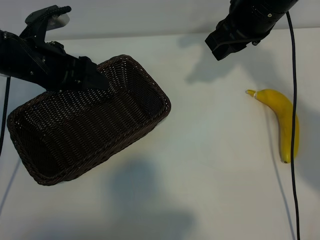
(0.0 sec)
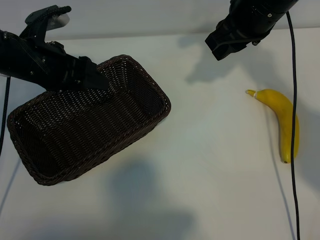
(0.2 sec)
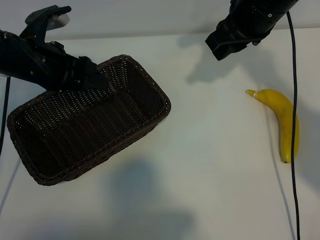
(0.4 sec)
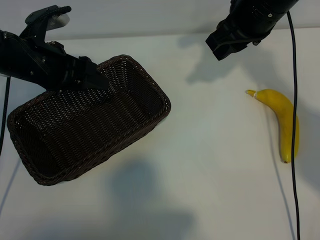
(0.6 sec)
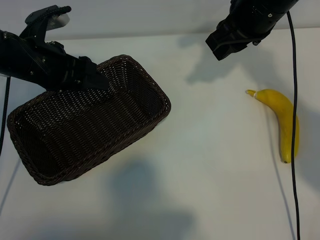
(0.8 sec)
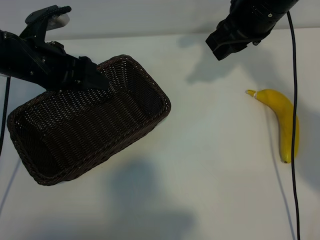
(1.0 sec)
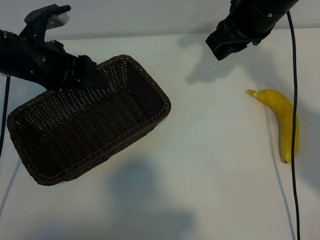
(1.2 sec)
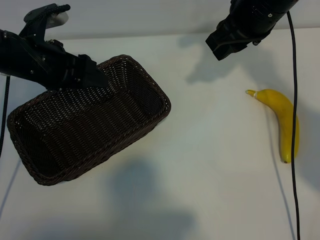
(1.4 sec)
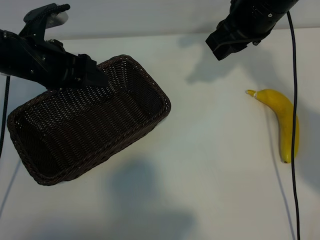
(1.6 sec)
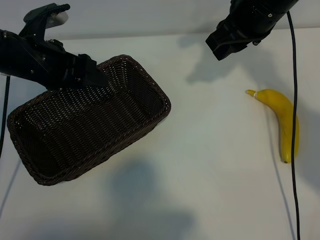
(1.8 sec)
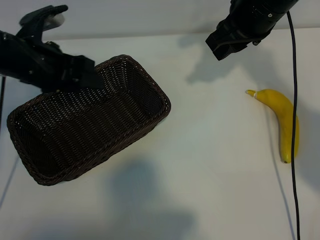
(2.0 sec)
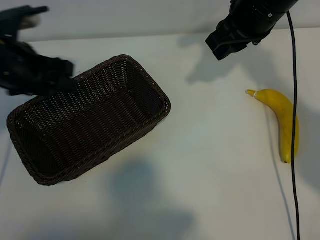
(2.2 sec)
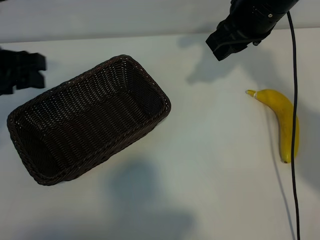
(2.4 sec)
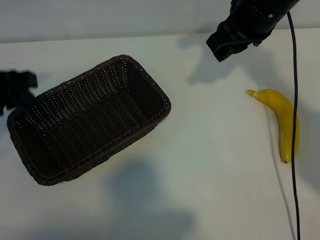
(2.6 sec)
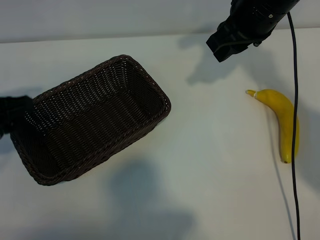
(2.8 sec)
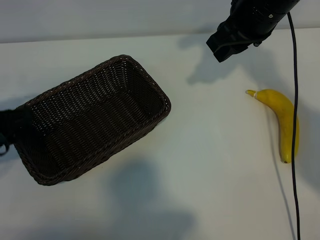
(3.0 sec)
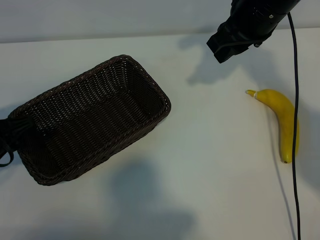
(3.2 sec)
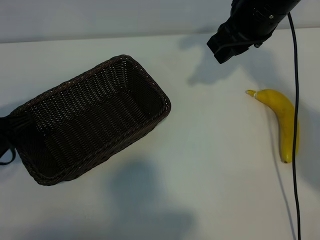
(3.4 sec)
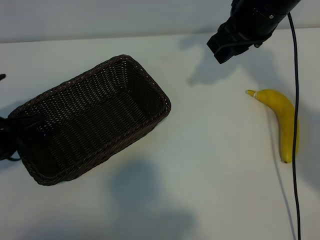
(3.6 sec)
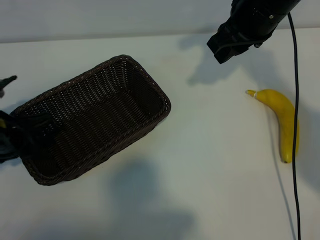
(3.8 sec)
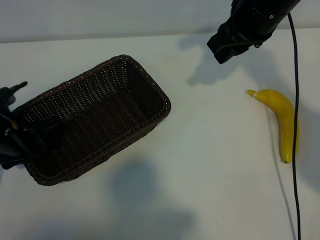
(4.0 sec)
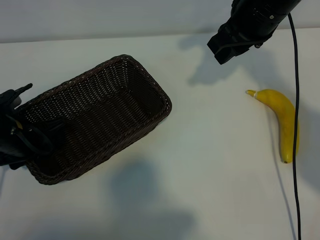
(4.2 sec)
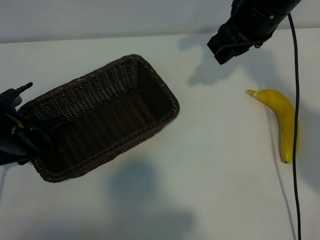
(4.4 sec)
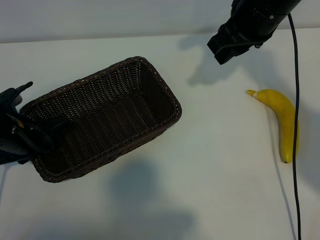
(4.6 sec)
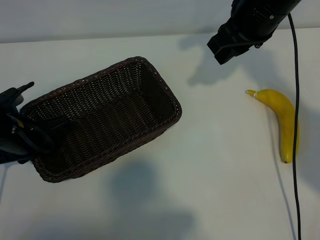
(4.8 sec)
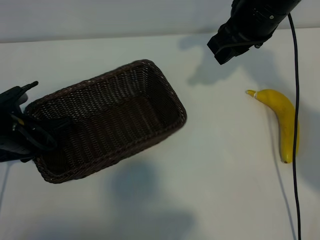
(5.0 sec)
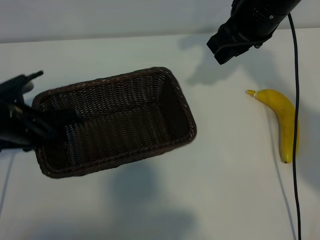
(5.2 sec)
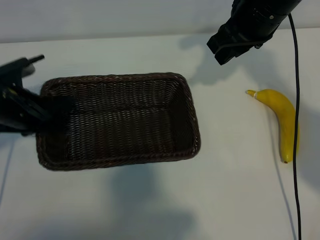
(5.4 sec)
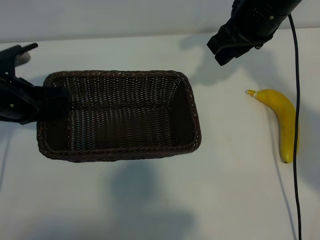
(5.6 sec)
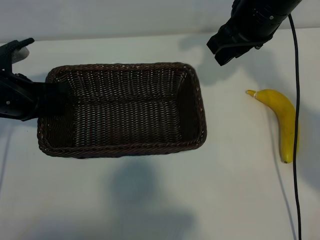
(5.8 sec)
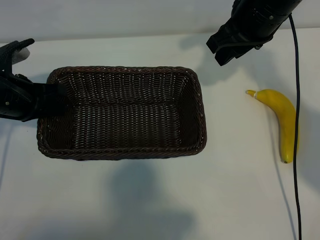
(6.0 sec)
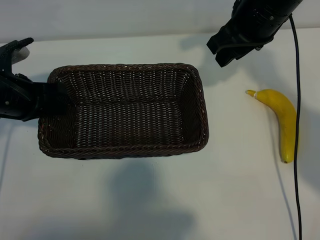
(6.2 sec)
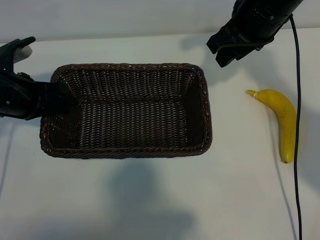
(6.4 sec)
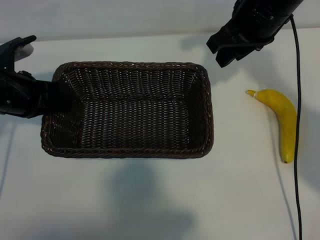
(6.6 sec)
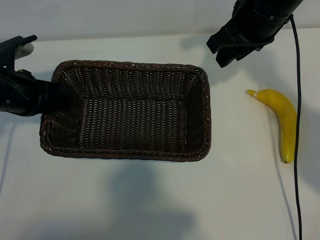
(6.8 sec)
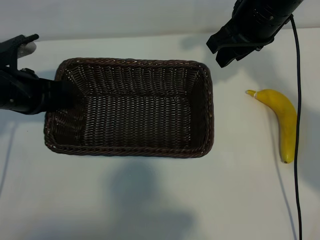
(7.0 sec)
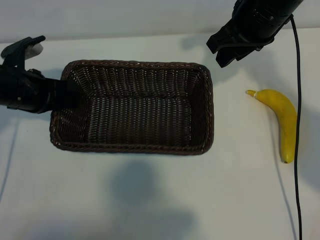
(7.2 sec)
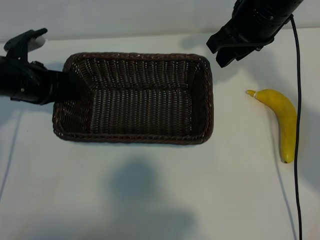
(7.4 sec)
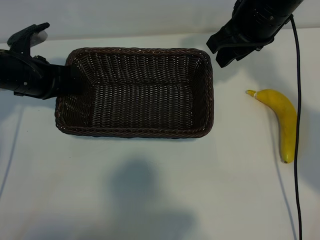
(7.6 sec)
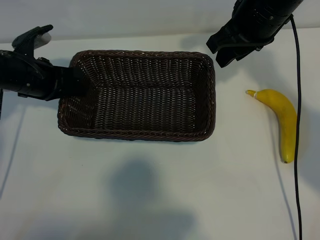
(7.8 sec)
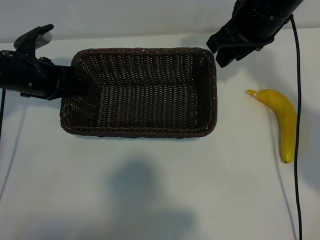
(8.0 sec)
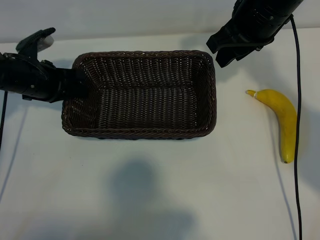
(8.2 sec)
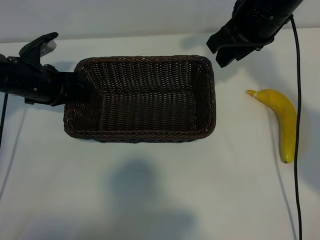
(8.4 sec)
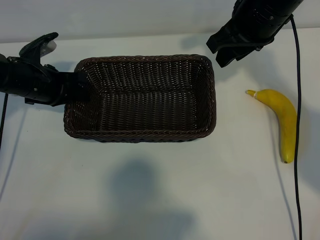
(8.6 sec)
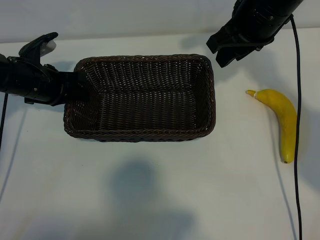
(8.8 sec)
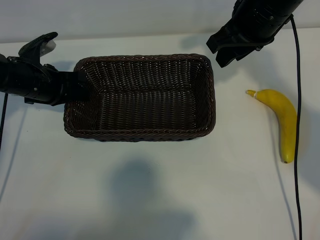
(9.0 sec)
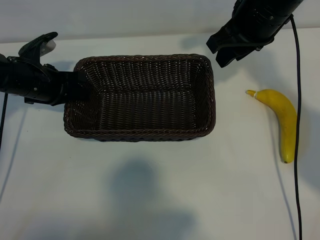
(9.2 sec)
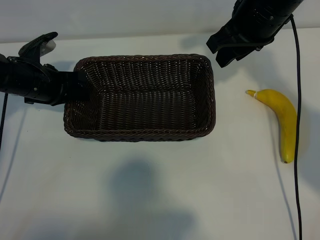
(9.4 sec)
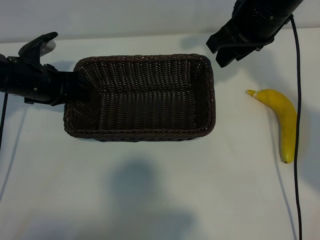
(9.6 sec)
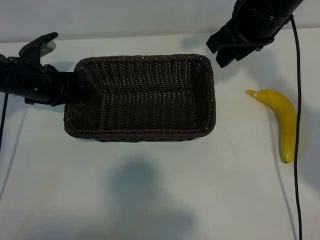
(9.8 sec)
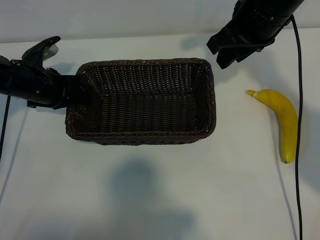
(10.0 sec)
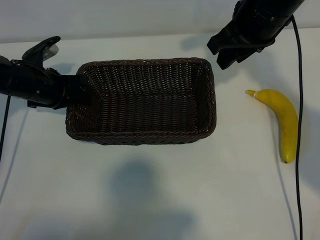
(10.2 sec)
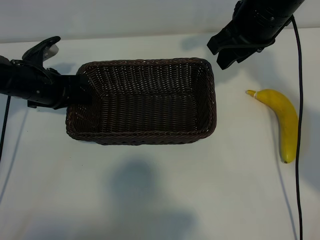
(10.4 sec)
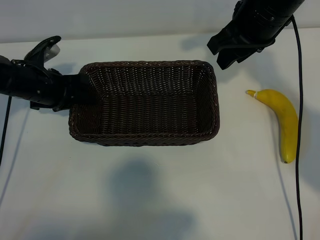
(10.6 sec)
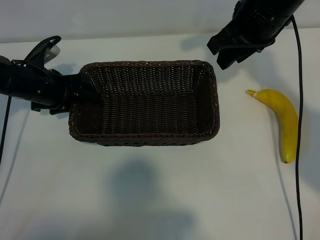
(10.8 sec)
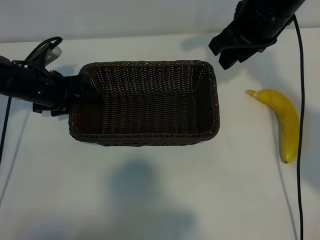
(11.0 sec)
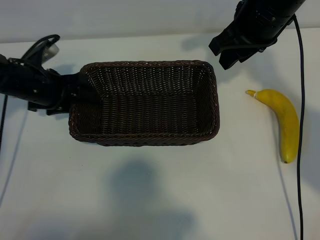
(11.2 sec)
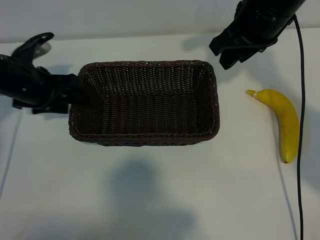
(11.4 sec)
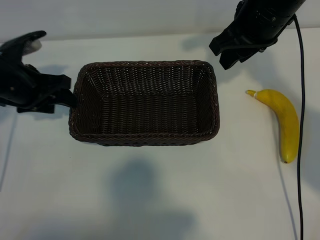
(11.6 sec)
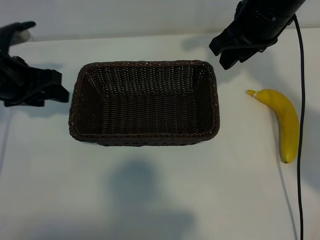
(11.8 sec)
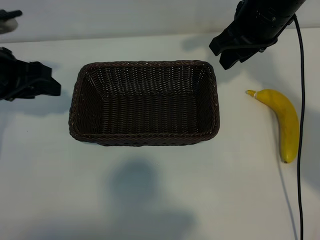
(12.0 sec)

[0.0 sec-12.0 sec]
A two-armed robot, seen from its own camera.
Task of the whole recording: pick up the banana and put it into the basket.
Step, 1.2 sec to 5.0 sec: Grasp the basket with the left gripper.
Step, 5.4 sec to 11.2 sec: Place the basket in the center of the table with the left gripper.

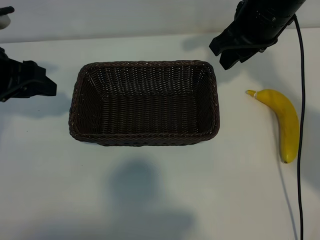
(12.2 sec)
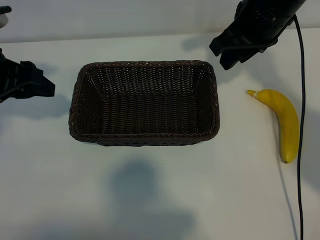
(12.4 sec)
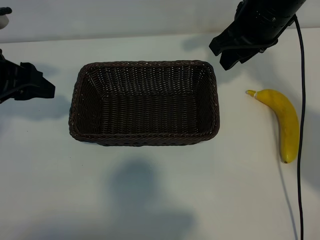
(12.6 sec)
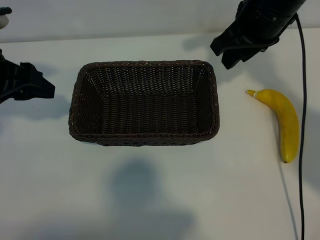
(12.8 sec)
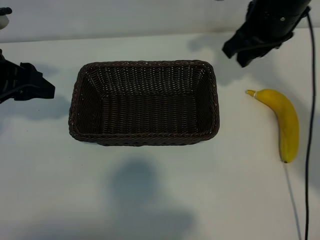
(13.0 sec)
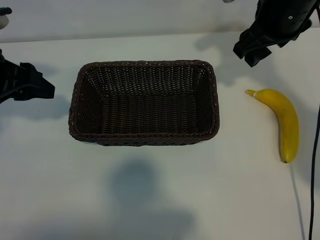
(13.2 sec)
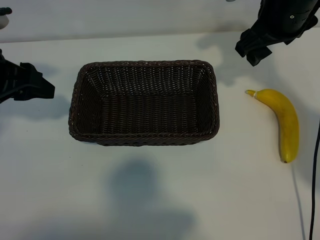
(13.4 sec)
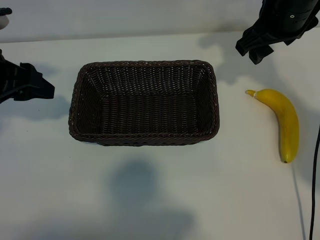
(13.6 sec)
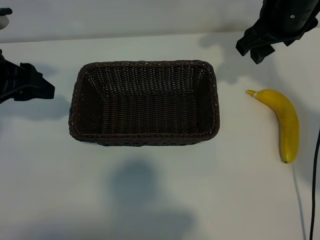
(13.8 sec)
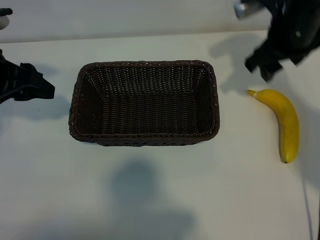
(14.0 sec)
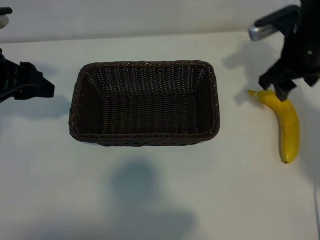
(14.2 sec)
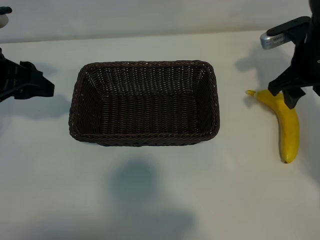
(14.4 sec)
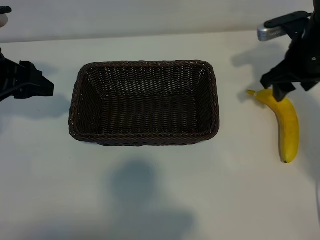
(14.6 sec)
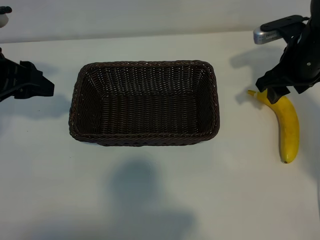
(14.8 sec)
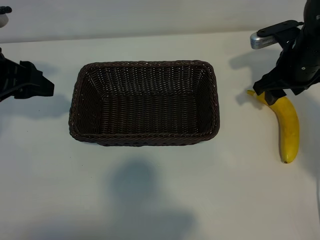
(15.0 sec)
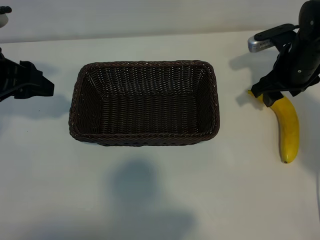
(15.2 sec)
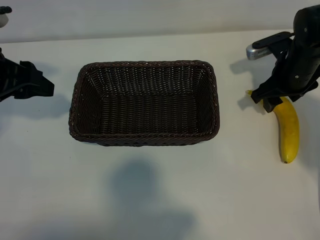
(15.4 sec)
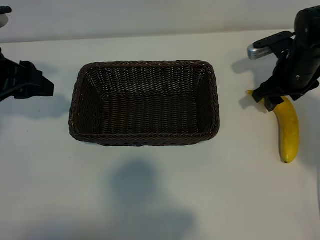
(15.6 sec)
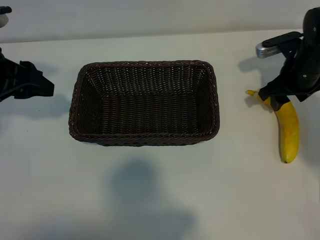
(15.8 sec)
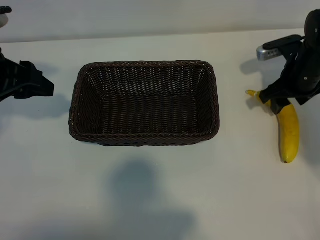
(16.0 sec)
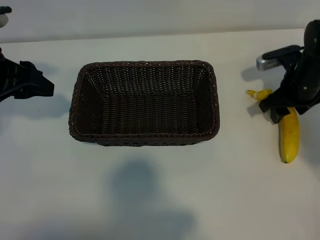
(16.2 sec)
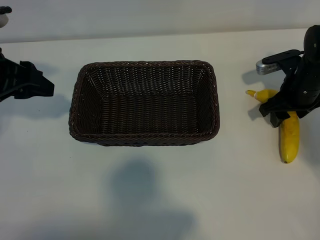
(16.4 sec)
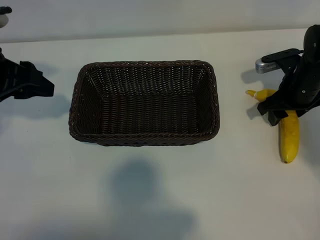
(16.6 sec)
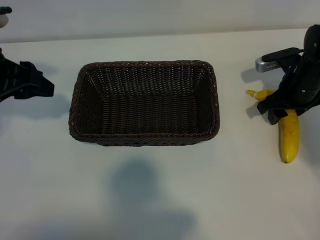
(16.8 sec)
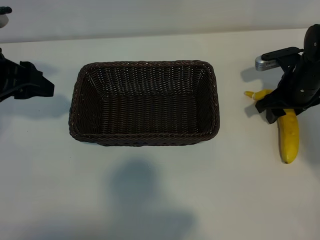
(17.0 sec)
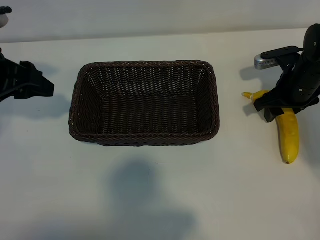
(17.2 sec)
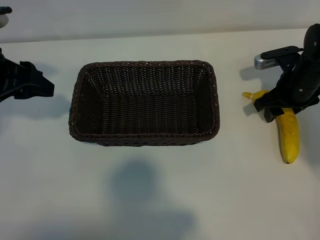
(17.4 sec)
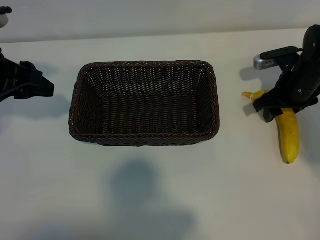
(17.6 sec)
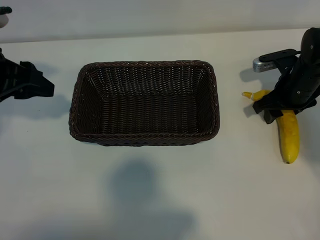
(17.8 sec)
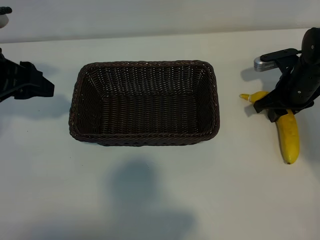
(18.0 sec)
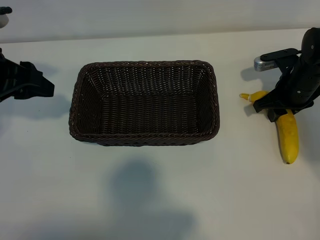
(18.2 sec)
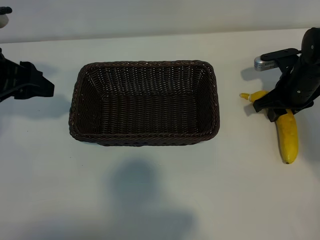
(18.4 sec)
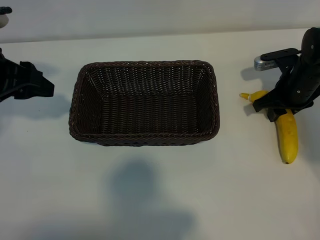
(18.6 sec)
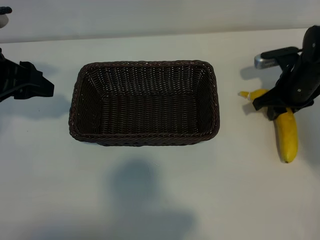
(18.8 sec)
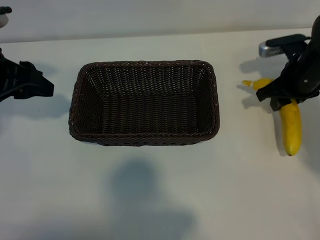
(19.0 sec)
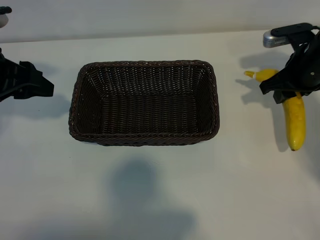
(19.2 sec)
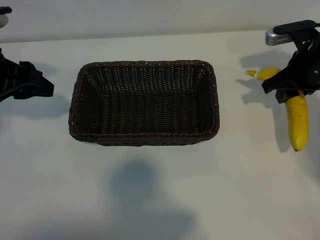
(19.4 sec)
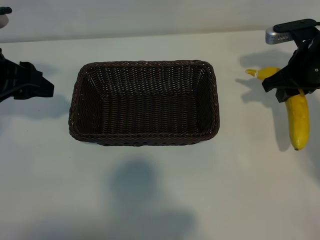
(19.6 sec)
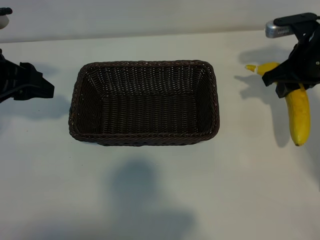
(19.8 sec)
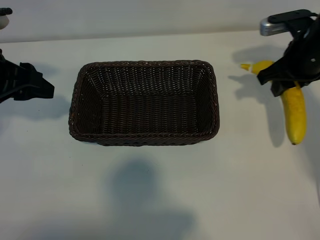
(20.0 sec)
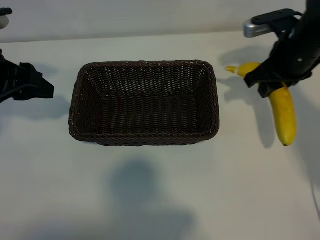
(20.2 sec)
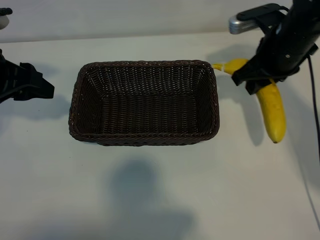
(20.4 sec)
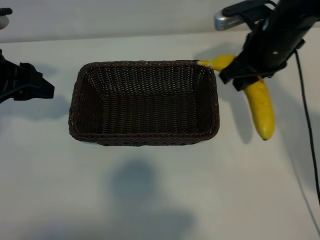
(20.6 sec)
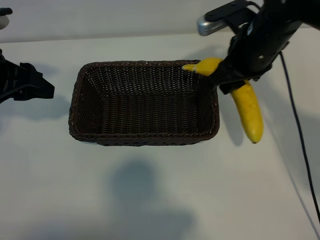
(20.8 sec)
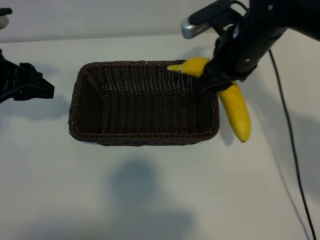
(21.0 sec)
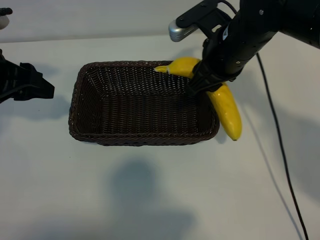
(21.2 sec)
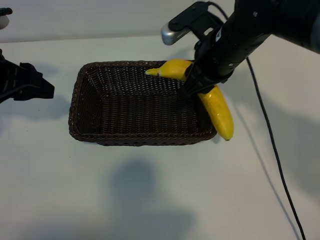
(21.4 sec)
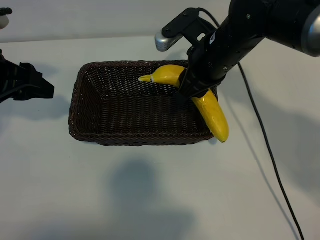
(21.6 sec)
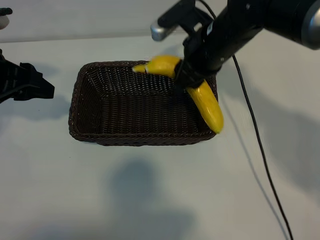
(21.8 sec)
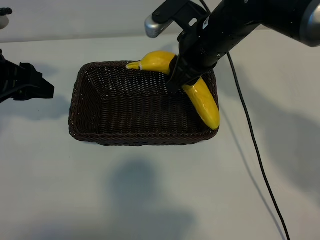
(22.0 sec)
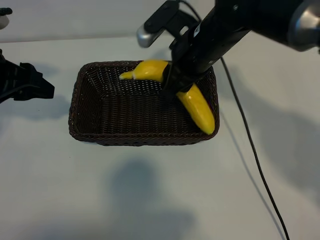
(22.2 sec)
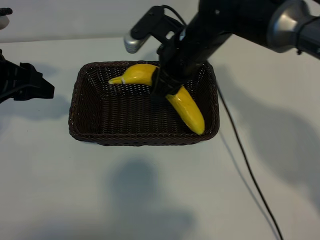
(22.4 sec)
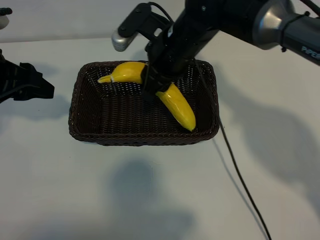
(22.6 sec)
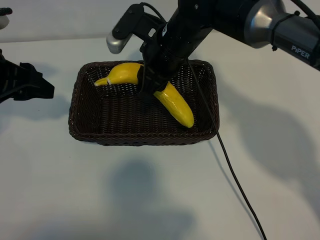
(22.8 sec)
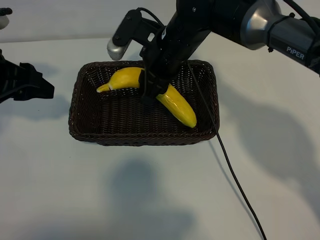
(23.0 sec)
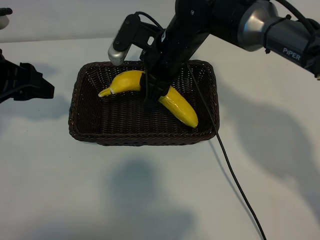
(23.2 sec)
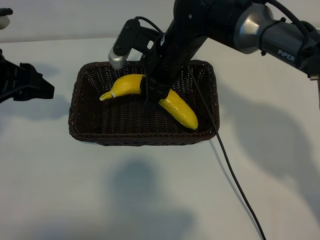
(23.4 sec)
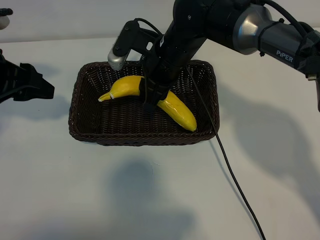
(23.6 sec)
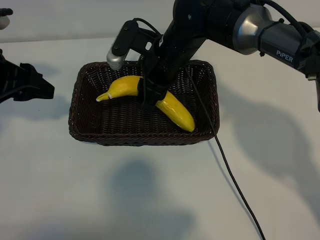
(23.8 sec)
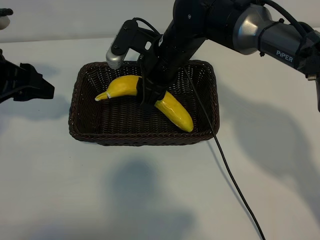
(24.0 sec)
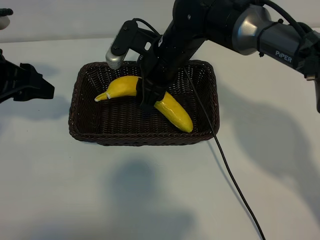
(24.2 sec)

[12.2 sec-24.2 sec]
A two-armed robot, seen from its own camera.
Task of the whole recording: pick up the banana and put it into the basket.
Step, 12.2 sec to 18.4 sec: Grasp the banana with right gripper.
